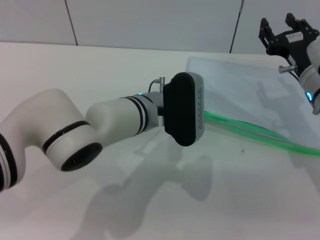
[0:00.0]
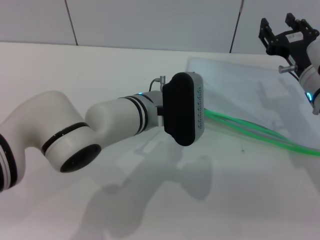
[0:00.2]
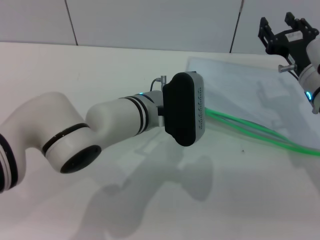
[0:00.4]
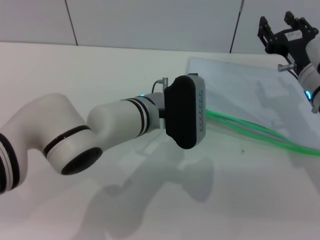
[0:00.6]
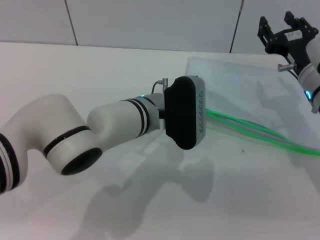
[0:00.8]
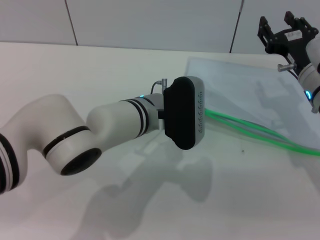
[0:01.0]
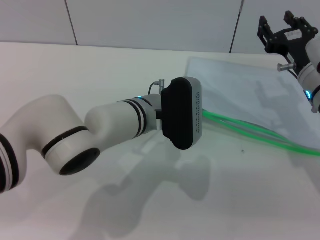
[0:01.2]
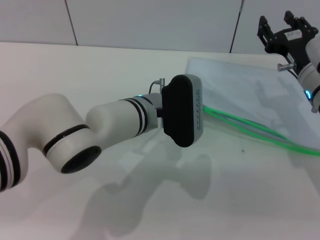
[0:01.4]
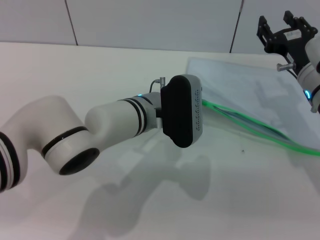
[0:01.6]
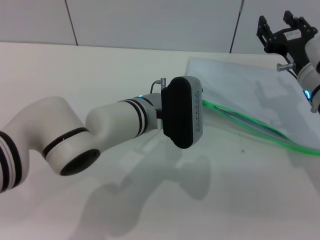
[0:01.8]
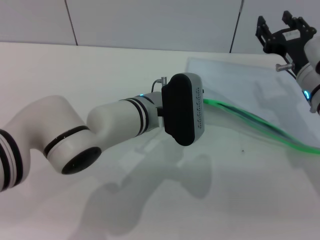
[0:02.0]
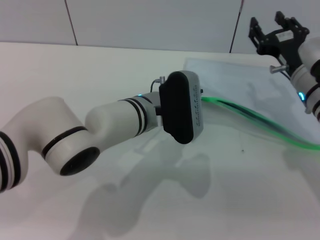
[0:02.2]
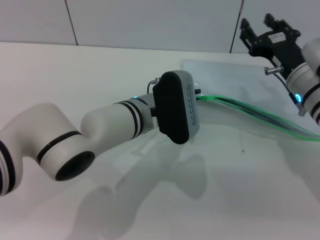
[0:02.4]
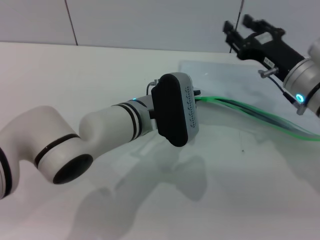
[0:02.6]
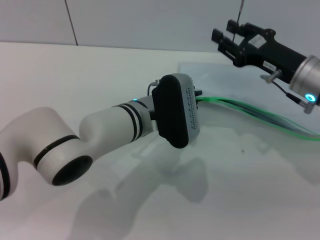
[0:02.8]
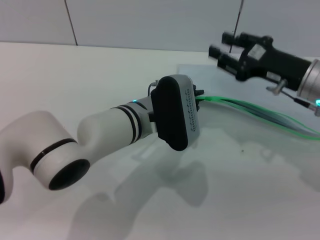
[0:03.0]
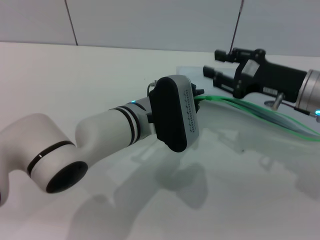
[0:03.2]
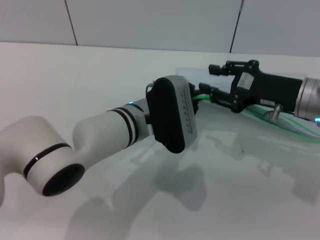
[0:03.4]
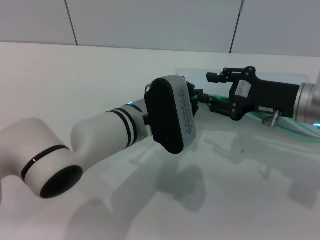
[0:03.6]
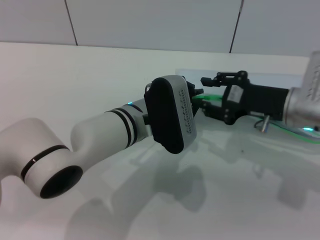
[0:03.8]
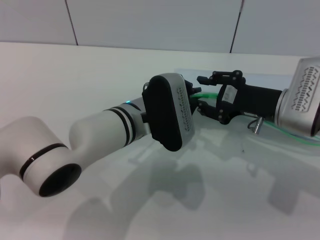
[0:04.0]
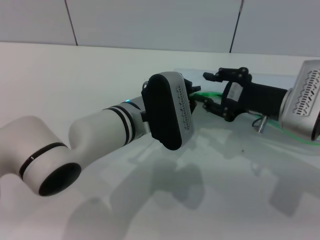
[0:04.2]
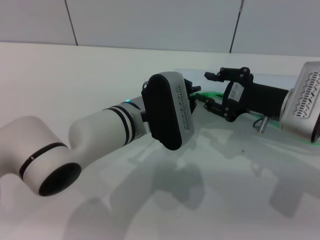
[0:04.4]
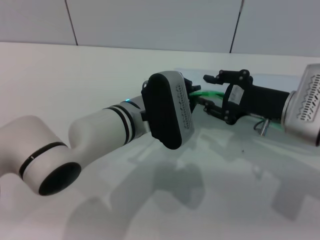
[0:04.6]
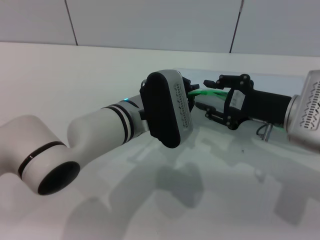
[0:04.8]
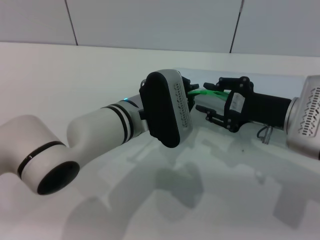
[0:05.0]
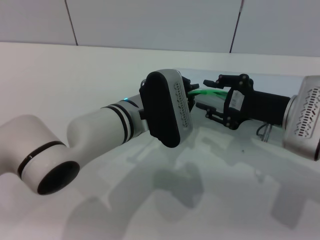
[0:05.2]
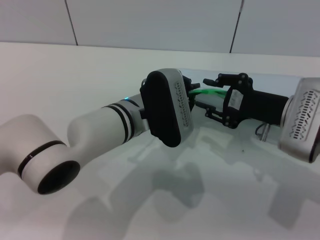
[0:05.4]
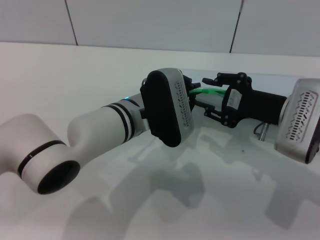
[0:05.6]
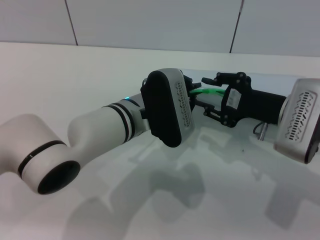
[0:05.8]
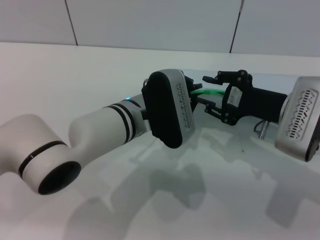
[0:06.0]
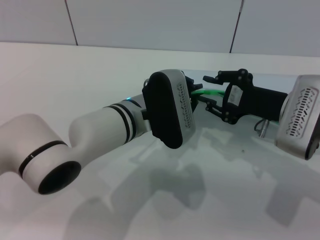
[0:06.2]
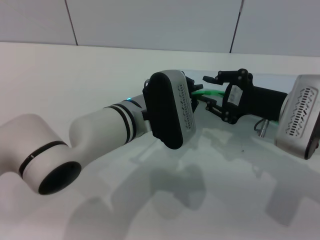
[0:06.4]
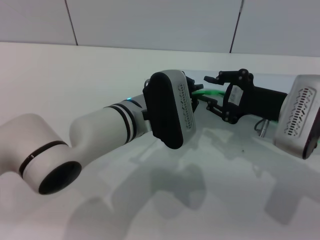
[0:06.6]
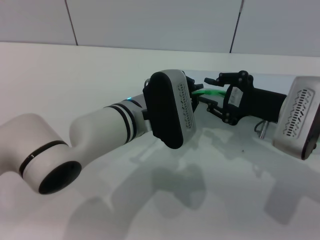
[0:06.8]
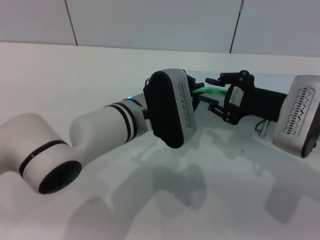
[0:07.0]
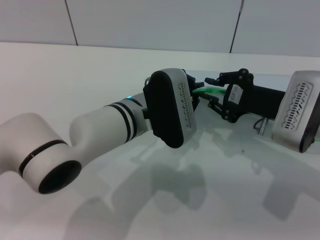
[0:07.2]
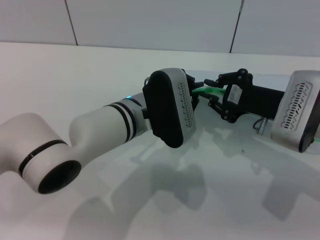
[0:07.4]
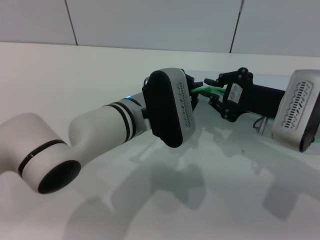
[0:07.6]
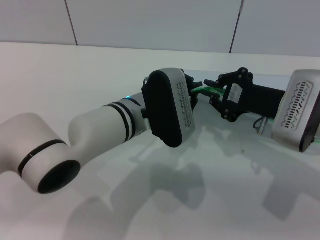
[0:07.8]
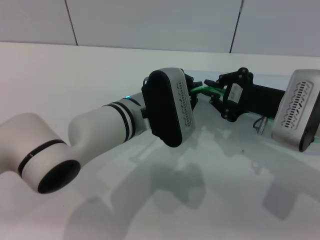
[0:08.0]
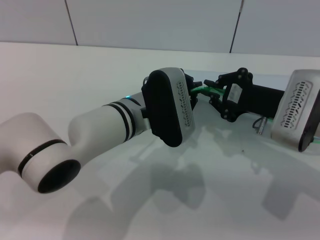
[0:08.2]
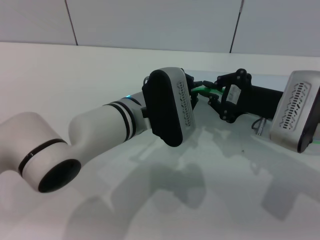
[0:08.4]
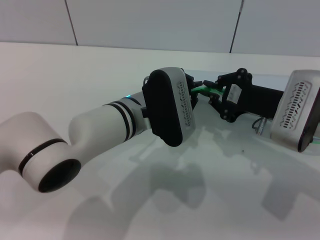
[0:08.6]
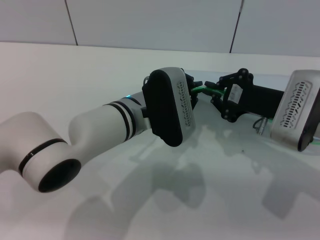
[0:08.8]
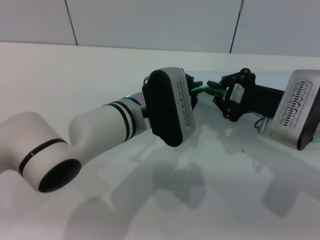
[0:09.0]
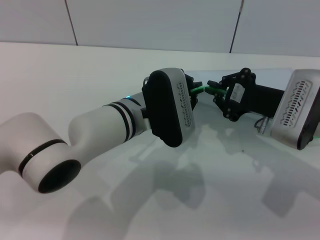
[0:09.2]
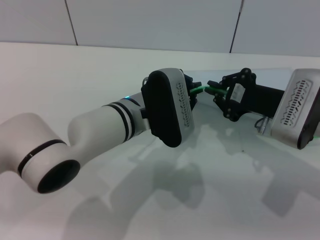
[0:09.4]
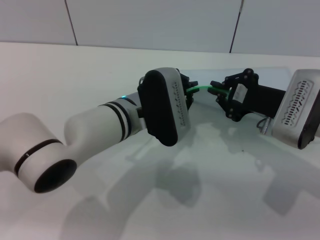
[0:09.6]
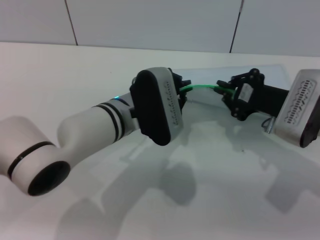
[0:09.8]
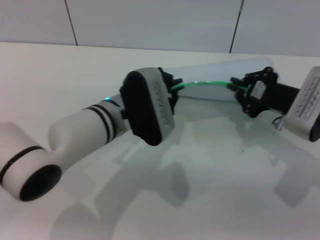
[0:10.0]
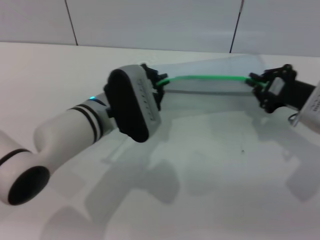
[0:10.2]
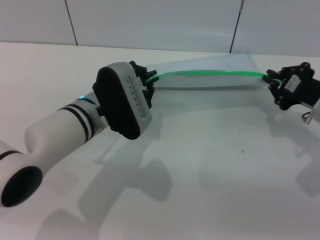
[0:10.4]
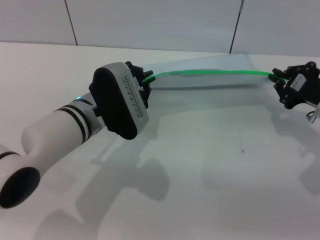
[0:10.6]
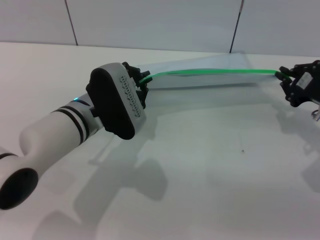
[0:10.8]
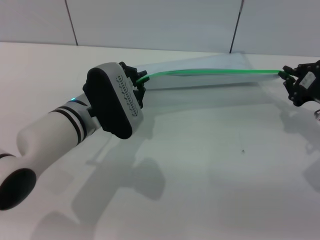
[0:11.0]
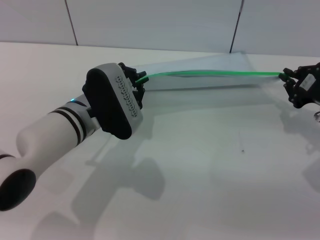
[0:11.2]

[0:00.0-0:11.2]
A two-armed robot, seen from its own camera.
Step, 0:00.0 to 0:02.6: Pick up the transparent plastic bag with the left gripper.
0:00.0 to 0:01.6: The two grippers keep their place.
0:01.6 to 0:03.2: The left gripper closes up.
0:04.8 to 0:06.4: The grippers move only a little.
0:06.4 to 0:08.0: The right gripper closes up.
0:08.0 to 0:09.6: Neither gripper changes place.
0:09.6 to 0:11.2: The left gripper is displaced to the left by about 5 cm, while the right gripper moves to the right, roughly 10 cm.

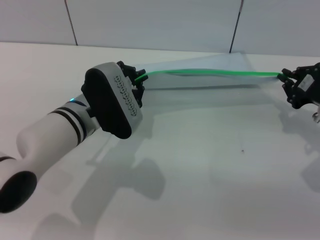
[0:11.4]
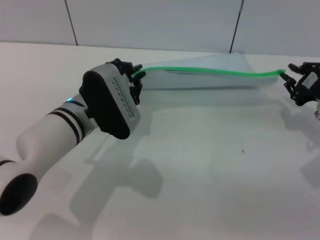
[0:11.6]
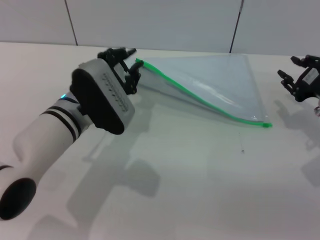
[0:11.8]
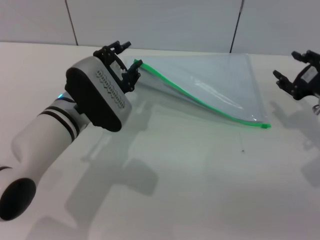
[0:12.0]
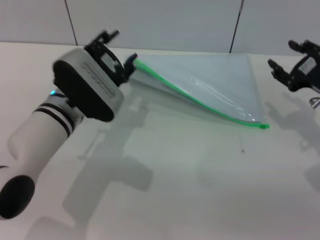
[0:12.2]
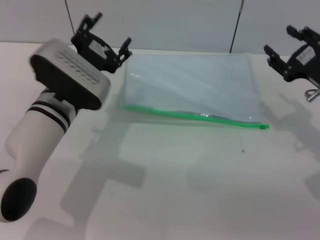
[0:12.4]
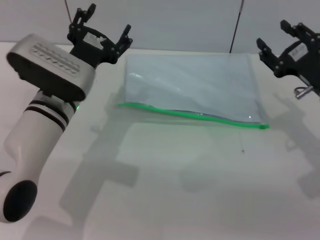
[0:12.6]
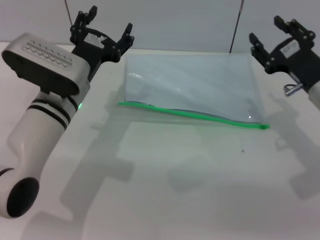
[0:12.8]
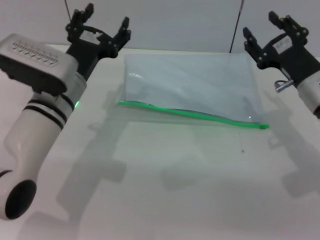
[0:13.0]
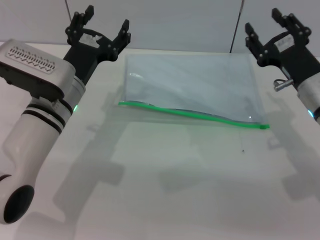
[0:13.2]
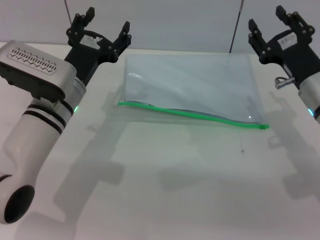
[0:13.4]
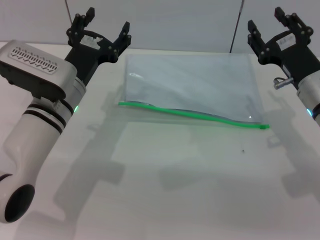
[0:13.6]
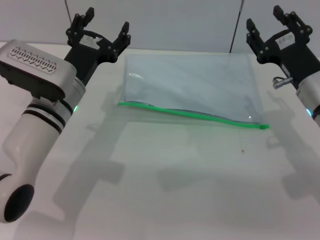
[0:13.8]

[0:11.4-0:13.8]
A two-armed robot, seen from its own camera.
Step, 0:11.8 to 0:12.6: Place the transparent plastic bag.
0:11.4 to 0:12.6: The right gripper opens up, while the left gripper opens up.
0:12.6 to 0:13.8: There are only small adjustments of the grippers.
